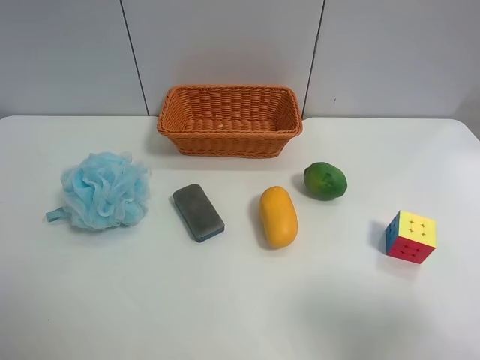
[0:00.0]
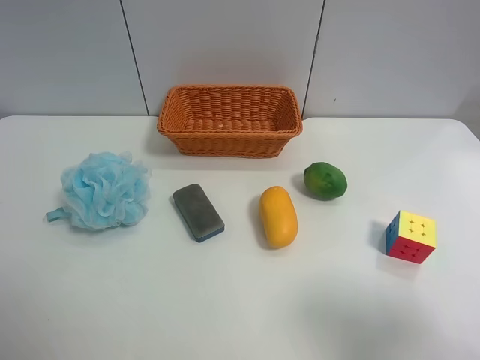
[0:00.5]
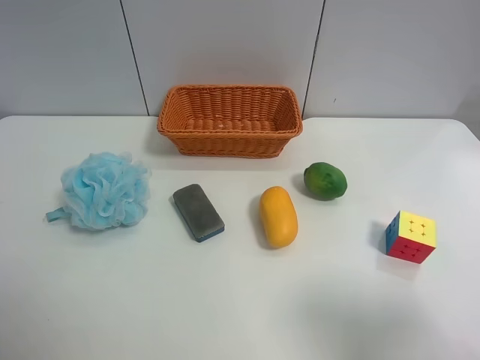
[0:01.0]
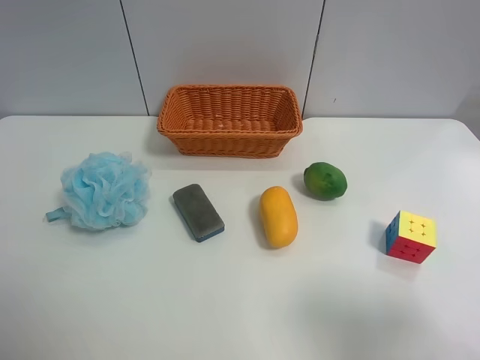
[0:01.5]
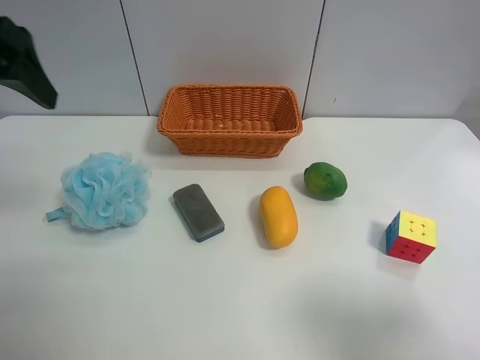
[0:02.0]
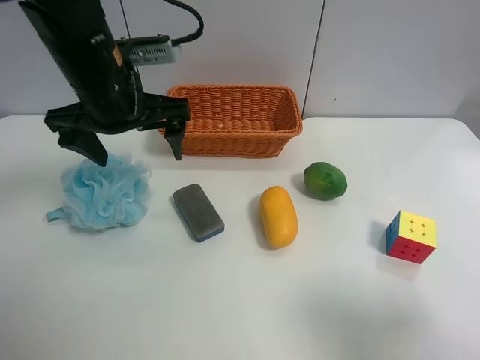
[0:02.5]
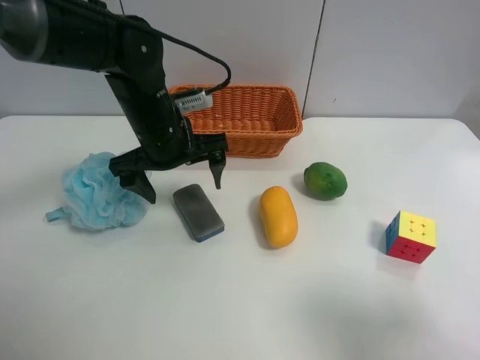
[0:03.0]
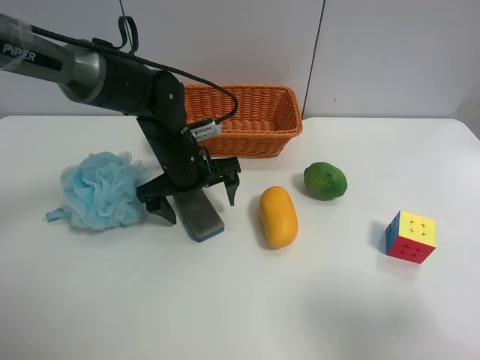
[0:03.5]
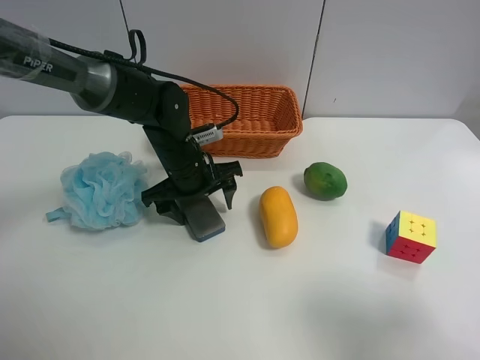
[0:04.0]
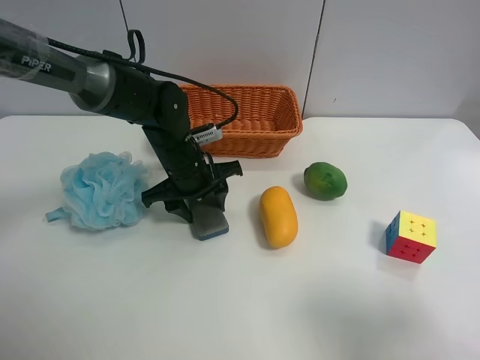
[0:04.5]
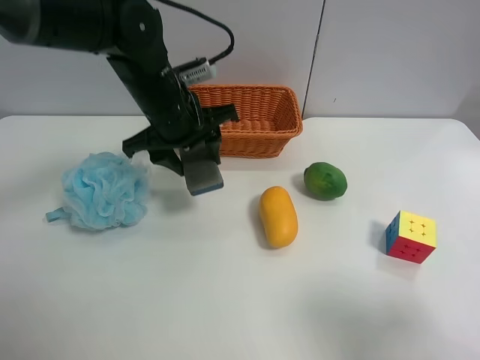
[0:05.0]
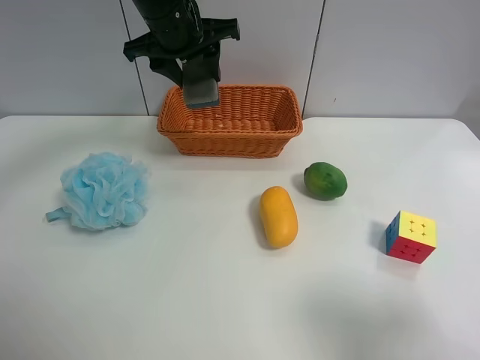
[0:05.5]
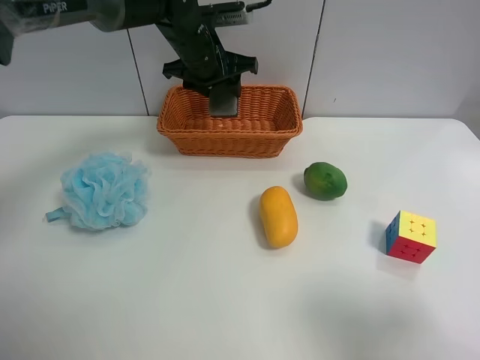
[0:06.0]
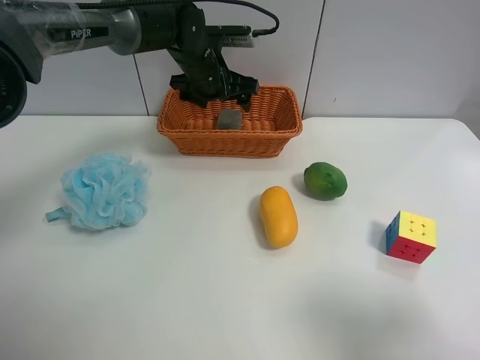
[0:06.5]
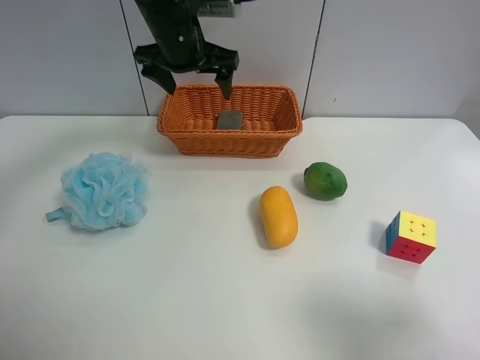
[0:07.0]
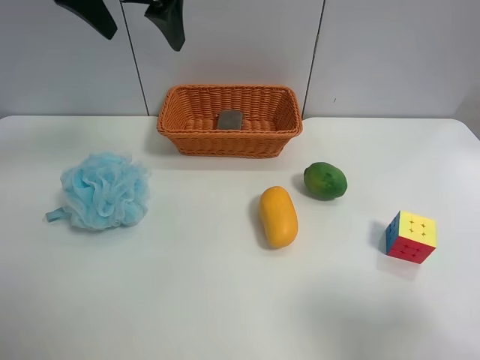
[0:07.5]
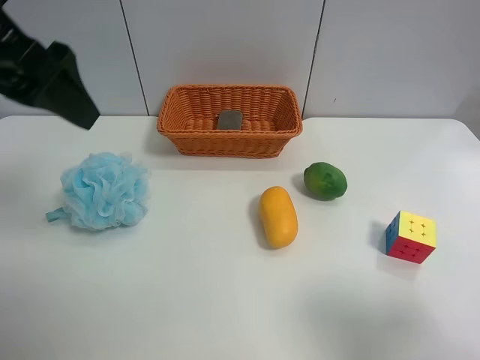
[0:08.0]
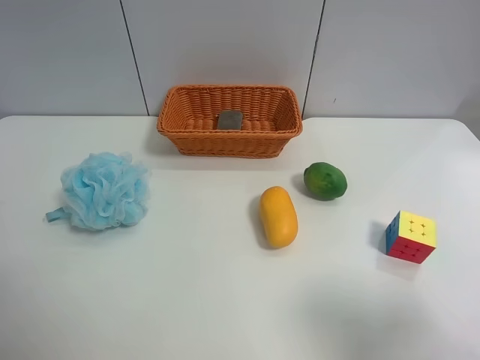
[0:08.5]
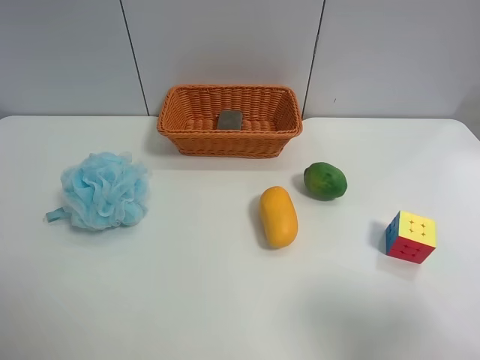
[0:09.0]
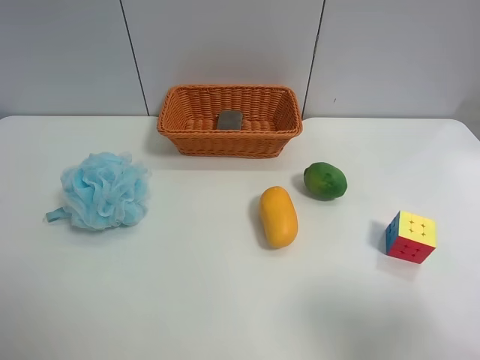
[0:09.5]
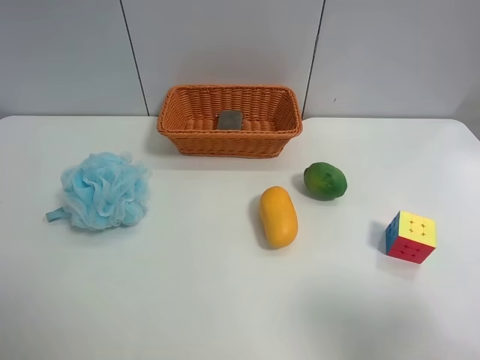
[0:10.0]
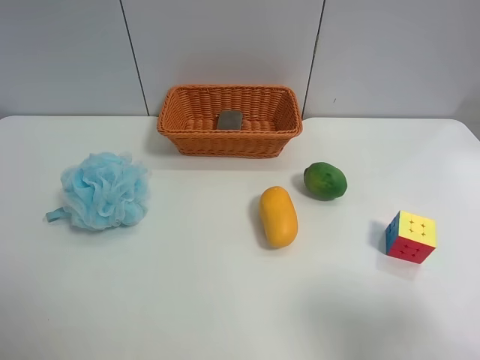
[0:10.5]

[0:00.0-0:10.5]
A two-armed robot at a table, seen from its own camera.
Task of the whole recording: use the left gripper to grab items from the table and place them in the basket.
Step, 0:00.0 to 0:04.0: Grasp the chalkboard eraser with the left gripper.
Step, 0:04.5 to 0:06.5: Place the chalkboard eraser into the basket with the left gripper.
0:00.0 to 0:02.0: The left gripper heads forward, covering some 25 cm.
0:02.0 to 0:04.0: The left gripper goes about 30 cm downward, to the right and forward, and closes its fingers.
0:04.0 to 0:06.5: The left gripper is displaced forward and upward by roughly 15 cm, and opens up.
0:06.5 to 0:08.5: The left gripper shifts roughly 40 cm backward and to the left.

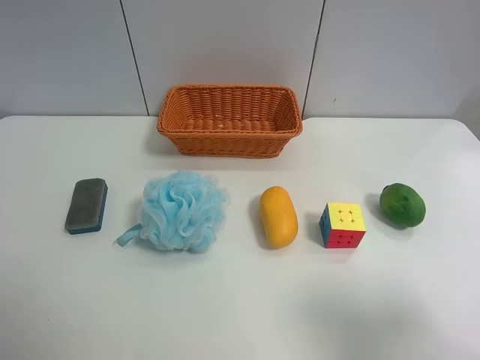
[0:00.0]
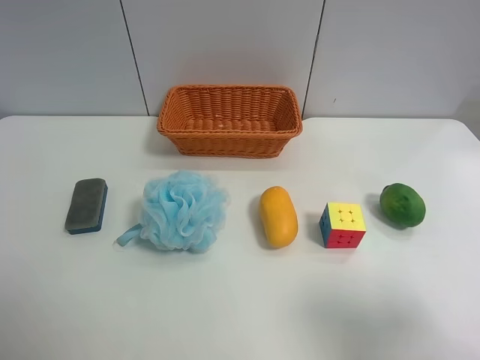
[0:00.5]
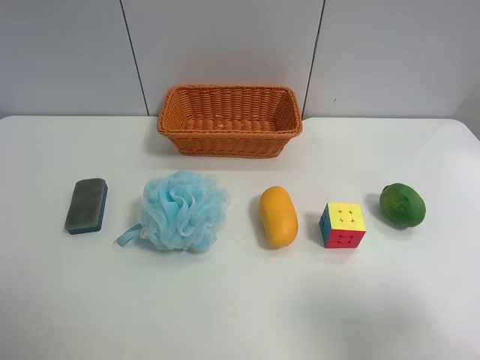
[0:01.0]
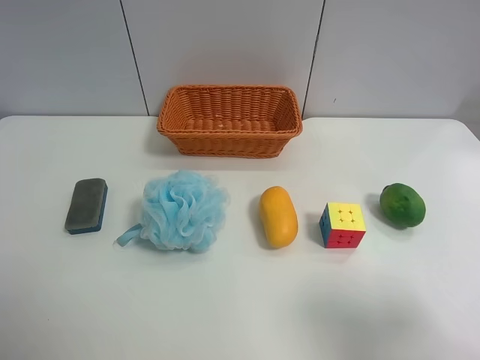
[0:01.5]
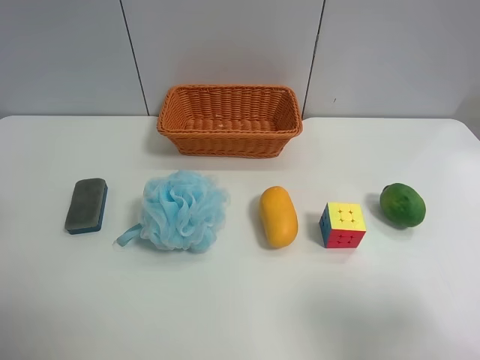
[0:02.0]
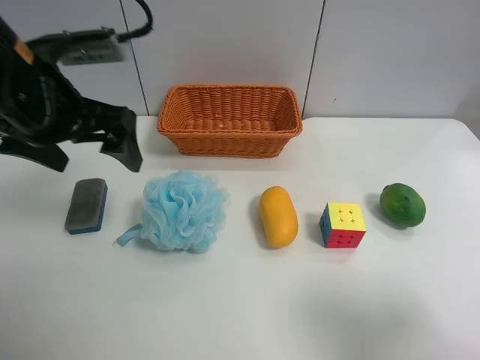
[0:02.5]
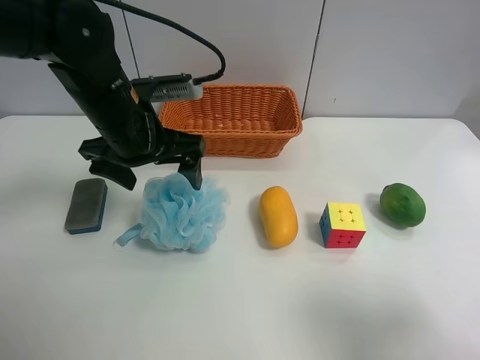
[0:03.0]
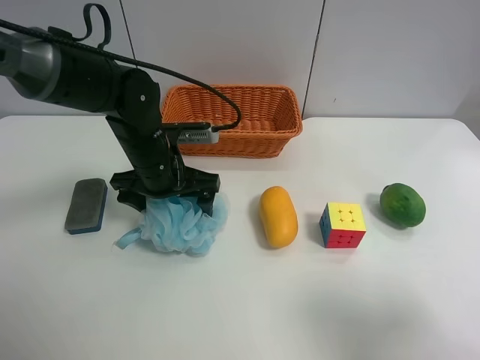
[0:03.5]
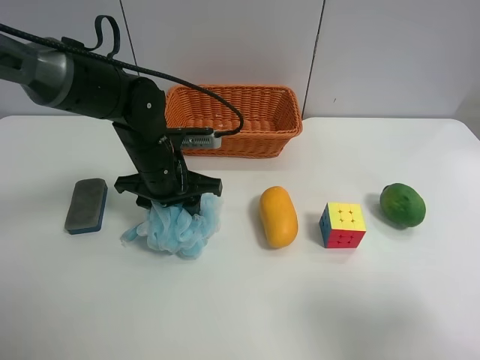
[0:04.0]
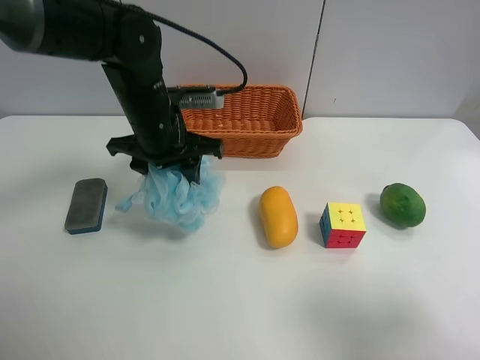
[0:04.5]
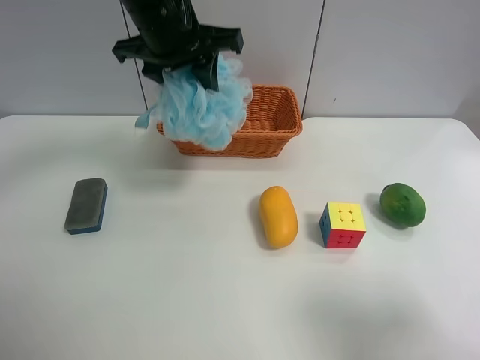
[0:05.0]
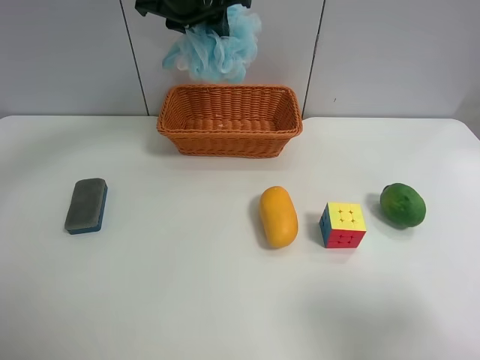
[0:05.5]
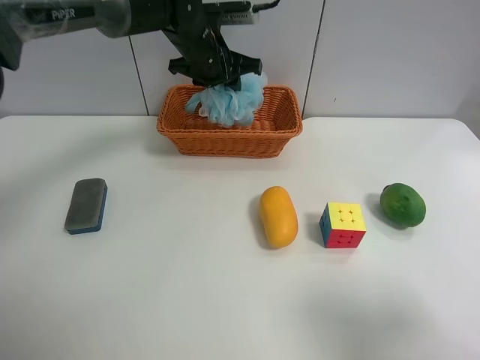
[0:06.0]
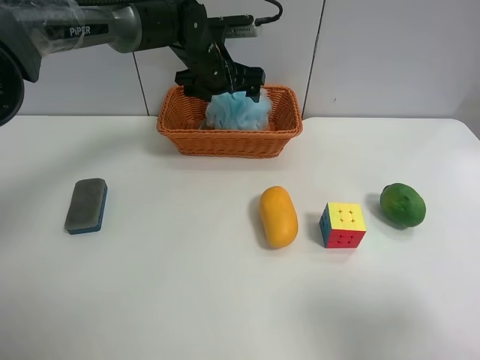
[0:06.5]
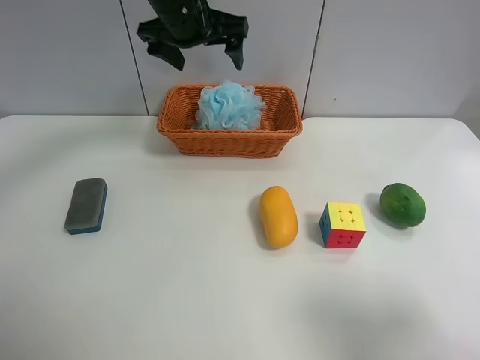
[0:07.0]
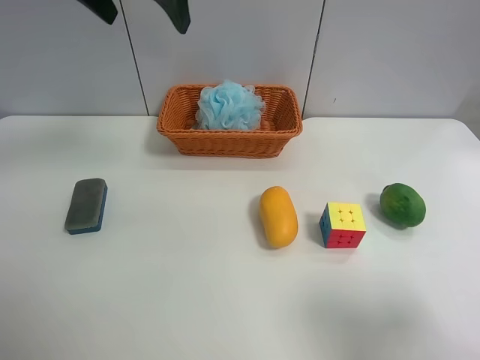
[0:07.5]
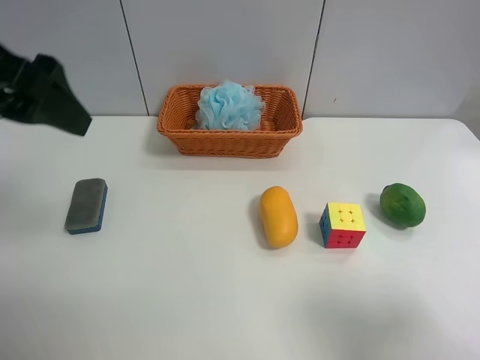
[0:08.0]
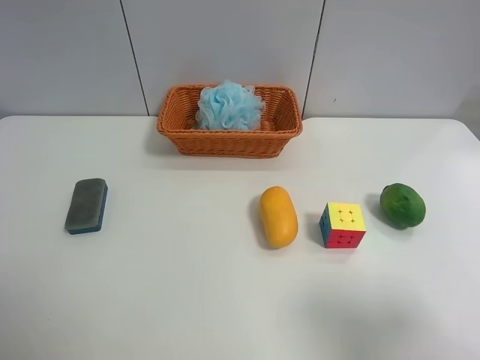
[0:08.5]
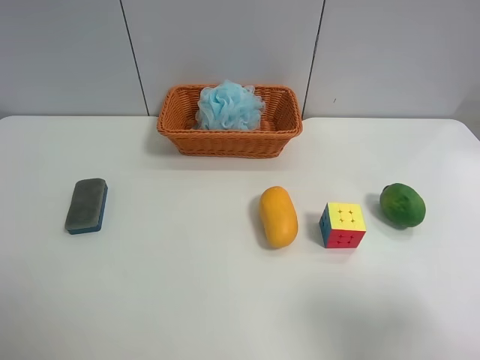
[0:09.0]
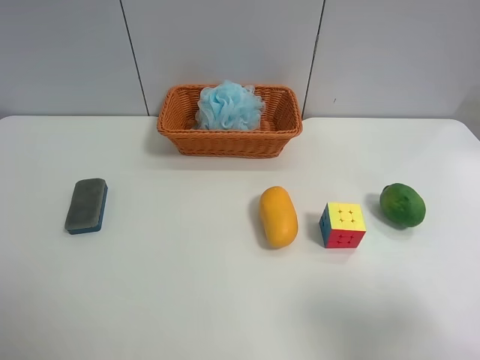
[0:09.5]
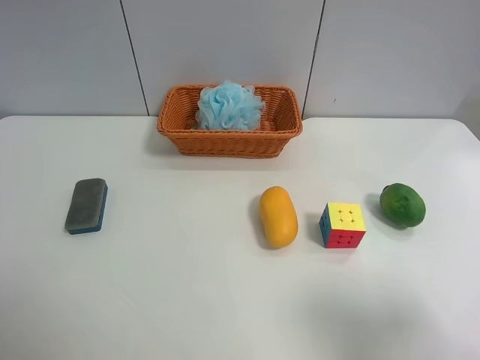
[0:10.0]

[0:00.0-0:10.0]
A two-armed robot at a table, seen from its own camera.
Task of the whole recording: use the left gripper to grab items from the table and place them in the basket.
Step, 0:00.0 to 0:04.0: Grasp the Shower puff with the left gripper.
Step, 0:04.5 to 0:06.5: Place the Shower puff into the basket with the left gripper.
0:02.0 to 0:04.0: The left gripper is displaced downward, to the right and forward by some 35 cm, and closes.
0:04.0 to 0:06.0: The left gripper moves forward and upward, some 20 cm.
0:06.0 to 0:08.0: The left gripper travels backward, to the left and upward by about 35 cm, and opens up.
0:08.0 to 0:10.0: The left gripper travels backward, to the left and downward by roughly 25 cm.

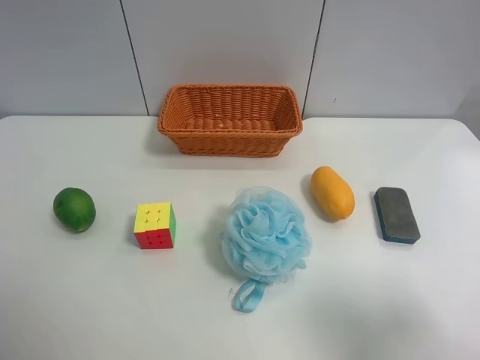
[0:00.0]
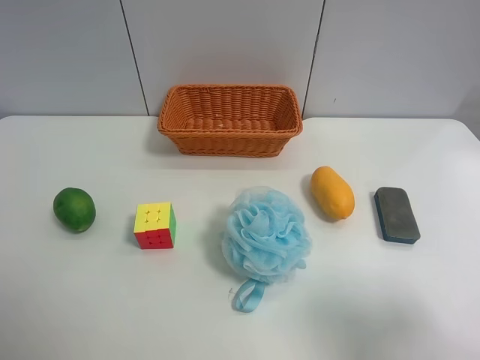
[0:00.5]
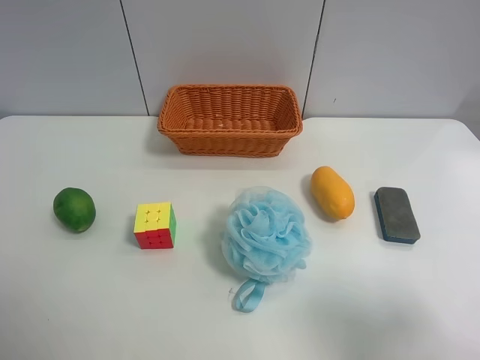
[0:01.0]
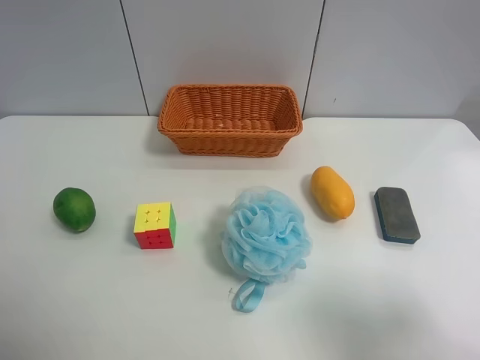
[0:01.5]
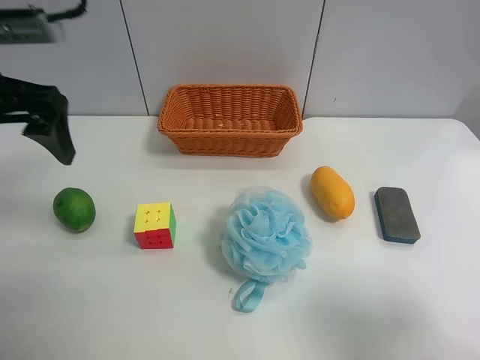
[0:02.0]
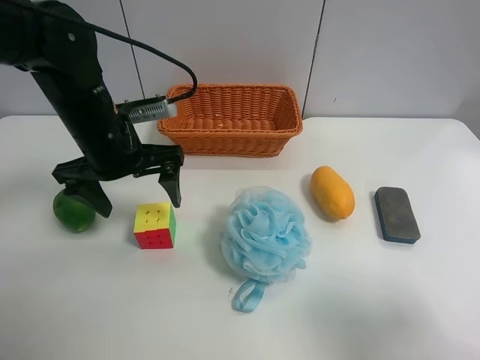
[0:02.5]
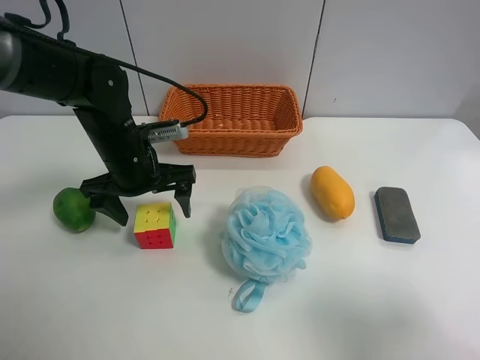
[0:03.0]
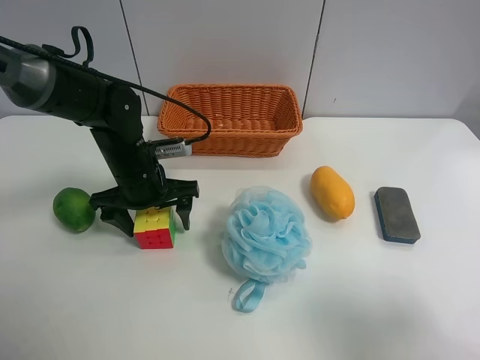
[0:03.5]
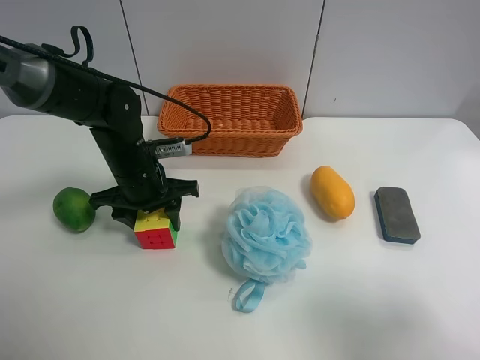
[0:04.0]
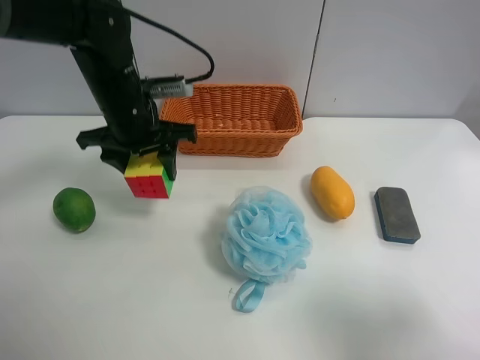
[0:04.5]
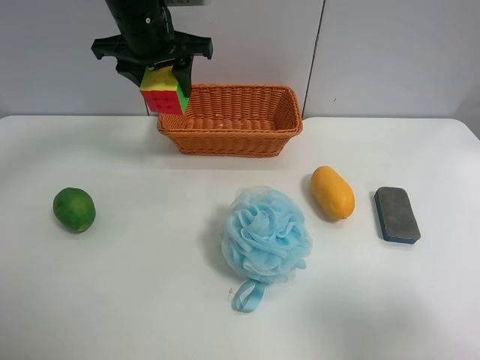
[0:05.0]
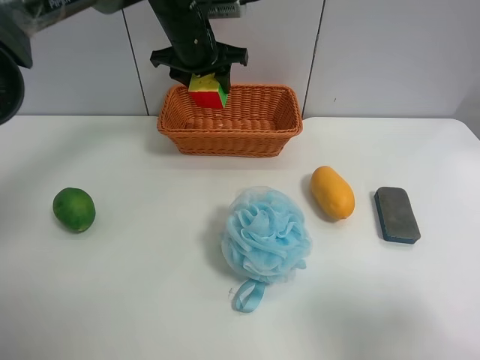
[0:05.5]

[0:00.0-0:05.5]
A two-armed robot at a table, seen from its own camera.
Task of the whole recording: use the left gripper to grab items from the table and place them in the basket.
Step, 0:00.0 to 0:03.5: Grasp the Rubik's Cube with the left gripper.
0:00.0 to 0:02.0: The left gripper shifts roughly 25 cm forward.
0:02.0 to 0:03.5: The left gripper goes roughly 20 cm downward and to the right, and closes.
0:03.5 to 0:05.5: The left gripper moves forward, upward and to the right, some 20 cm, and closes.
